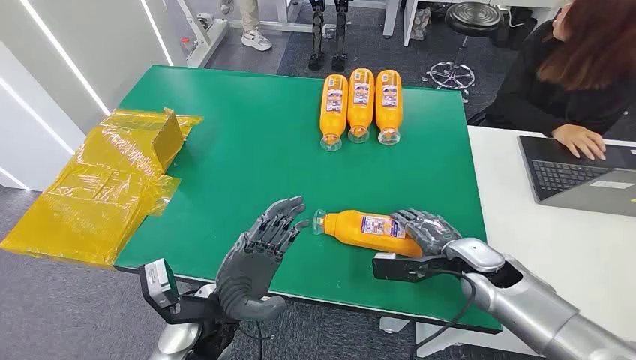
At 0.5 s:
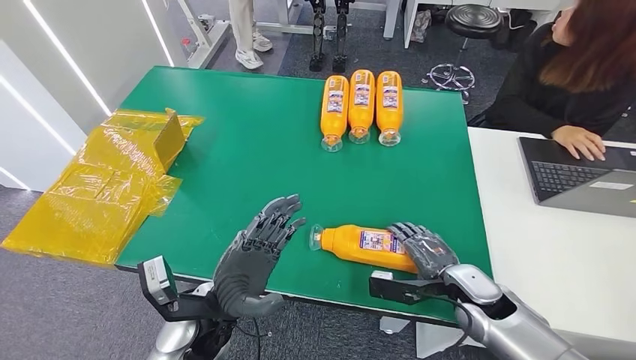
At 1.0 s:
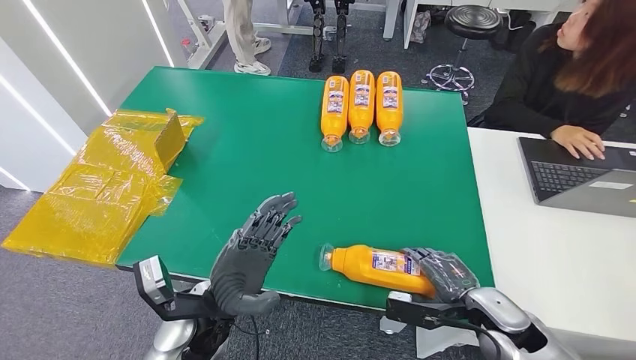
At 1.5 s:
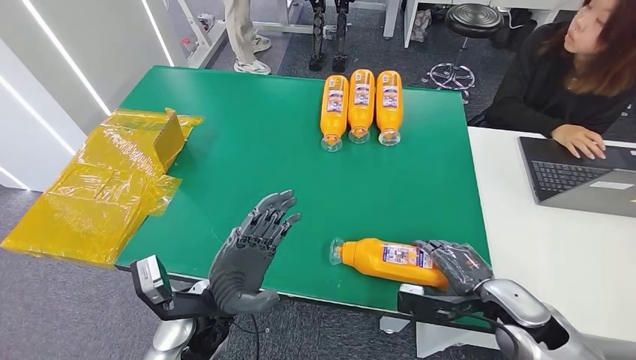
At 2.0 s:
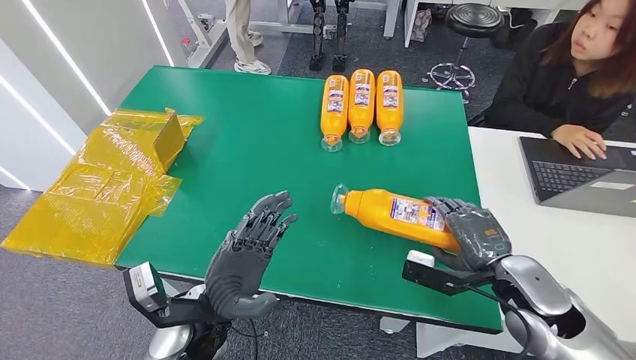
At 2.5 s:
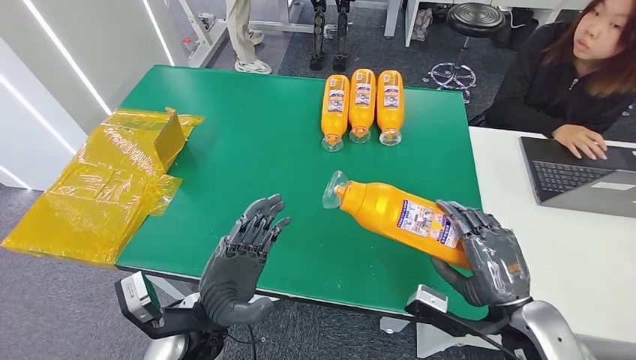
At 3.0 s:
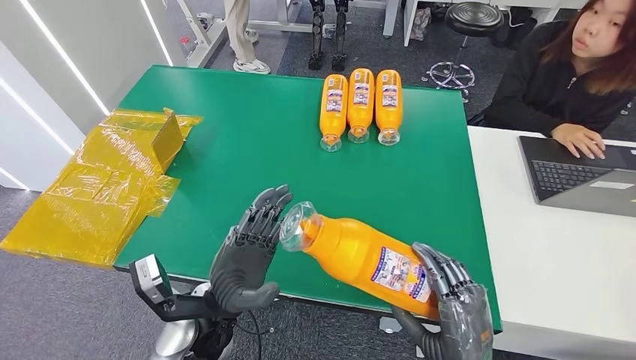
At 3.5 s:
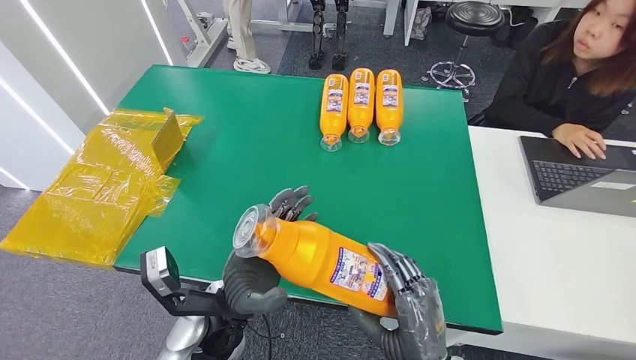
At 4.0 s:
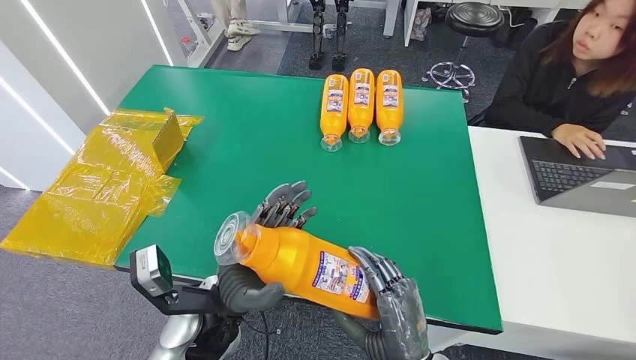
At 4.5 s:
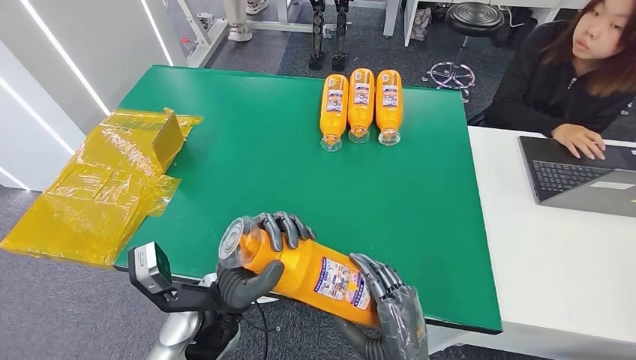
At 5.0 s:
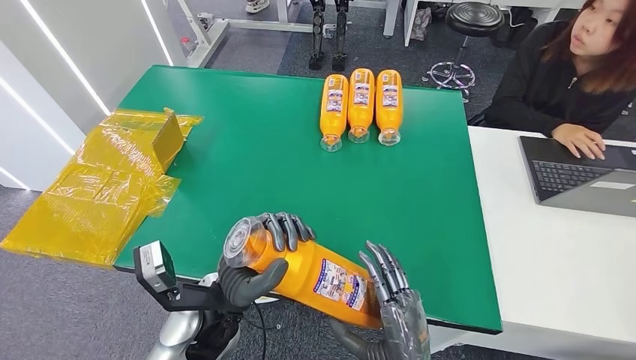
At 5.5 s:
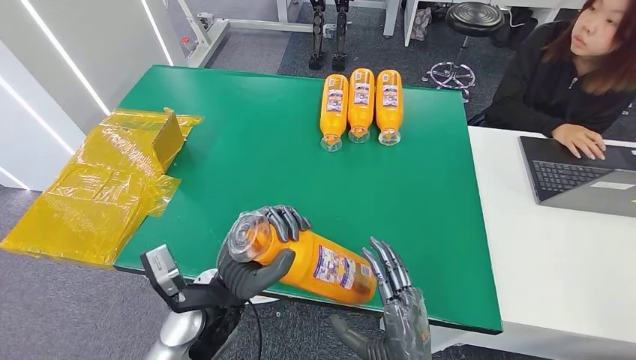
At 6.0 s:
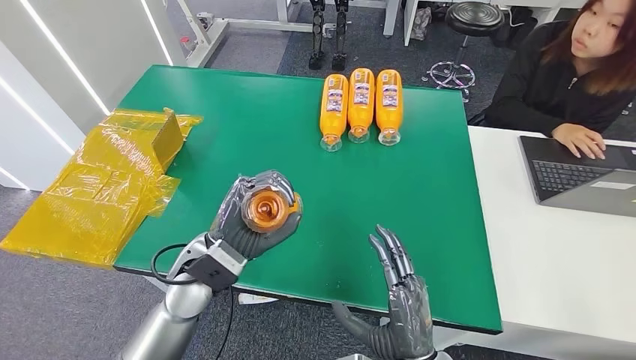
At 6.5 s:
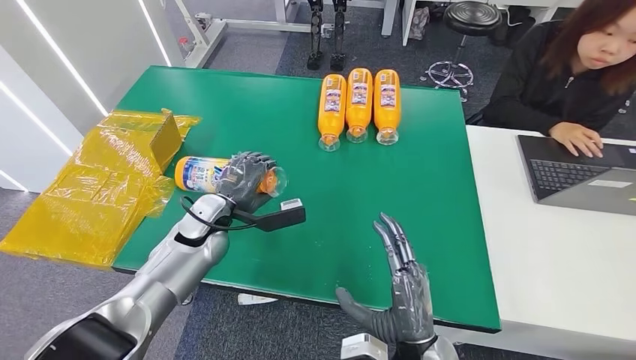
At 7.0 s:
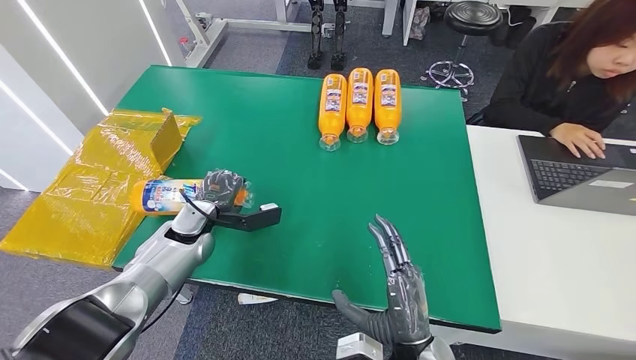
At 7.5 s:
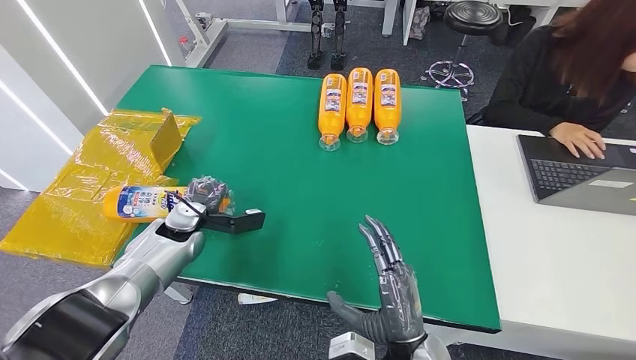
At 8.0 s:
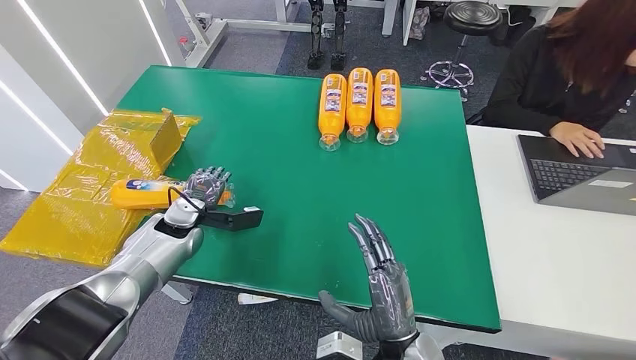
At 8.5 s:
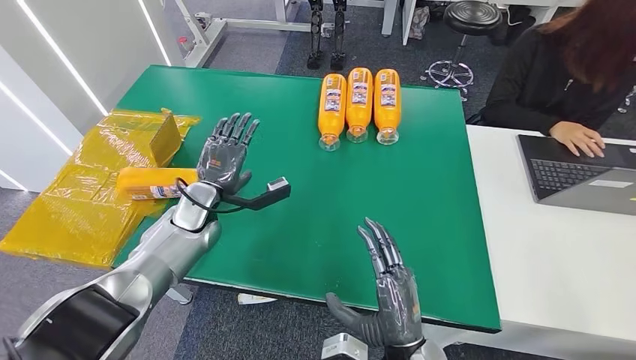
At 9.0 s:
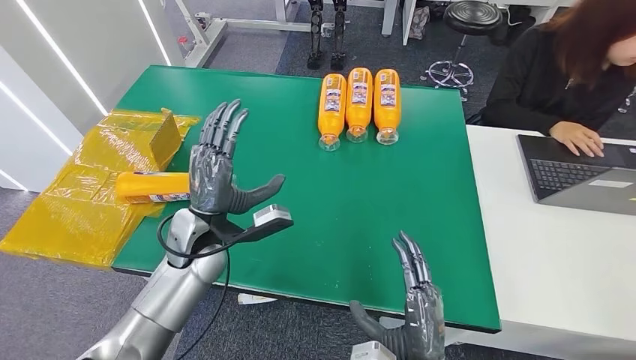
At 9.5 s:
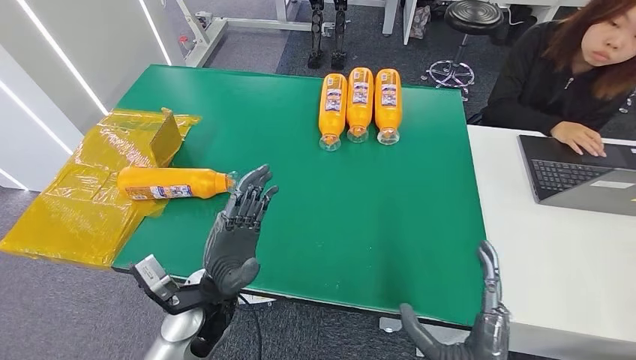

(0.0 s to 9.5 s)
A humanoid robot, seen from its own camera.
Step, 0.0 s - 3.0 s: Pick up the bottle from the table.
Step, 3.5 s - 9.5 s: Turn the bottle to the front side.
2.0 s - 4.0 s: The right hand goes approximately 20 cm to the left, backward and downward.
4.0 s - 5.5 s: The hands make only small movements.
7.5 s - 9.5 s: The left hand is displaced to the right and backward by roughly 20 cm, while the right hand travels backward and to the right by about 10 cm.
